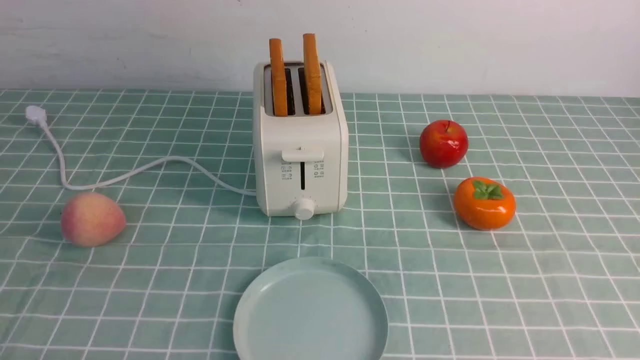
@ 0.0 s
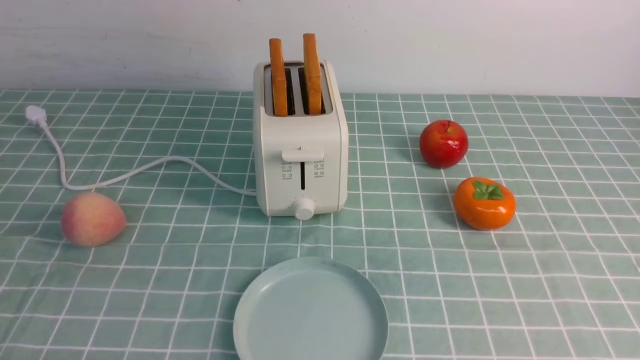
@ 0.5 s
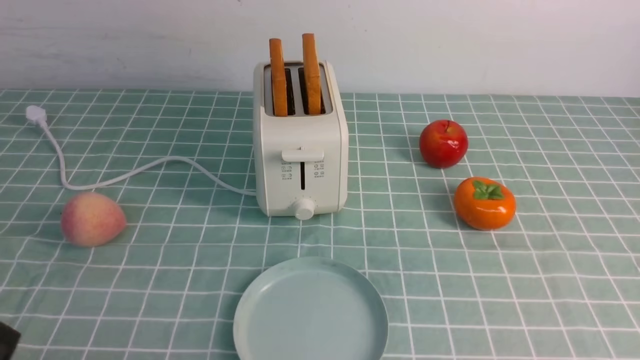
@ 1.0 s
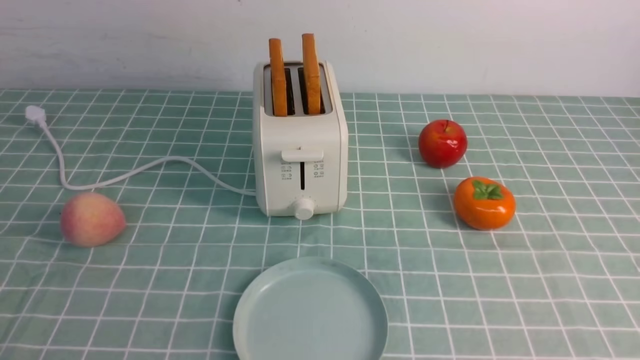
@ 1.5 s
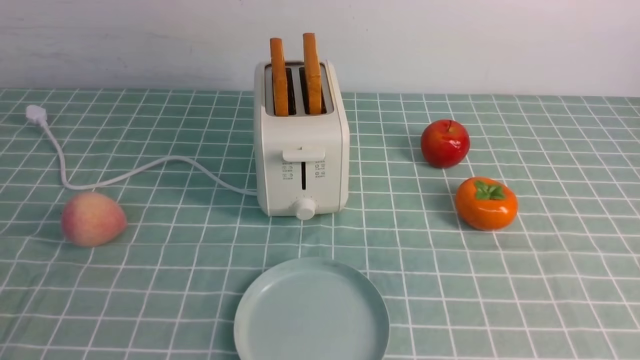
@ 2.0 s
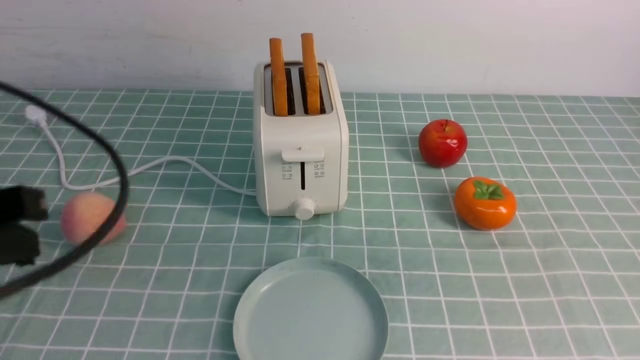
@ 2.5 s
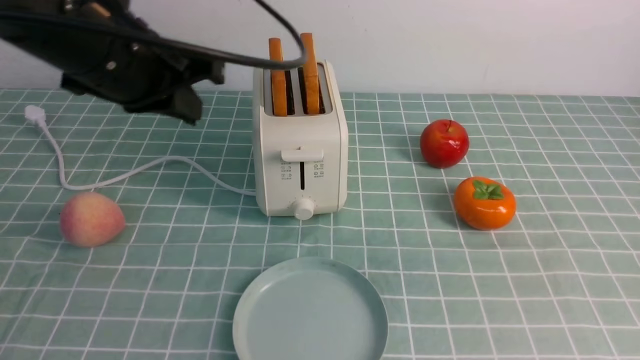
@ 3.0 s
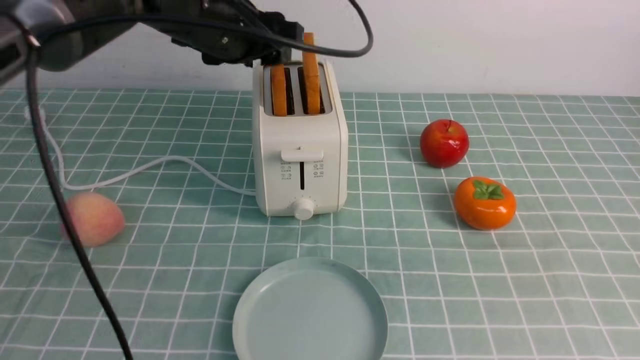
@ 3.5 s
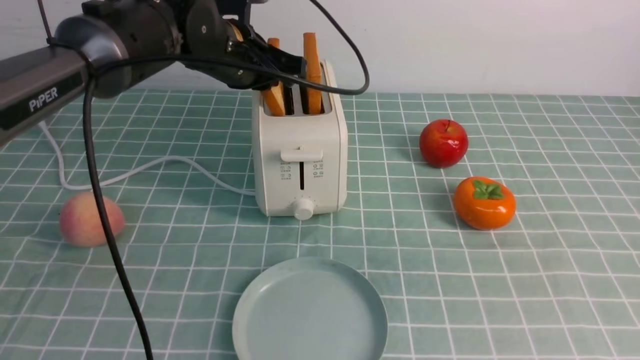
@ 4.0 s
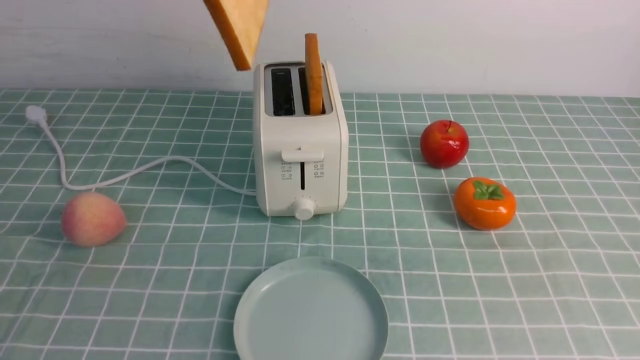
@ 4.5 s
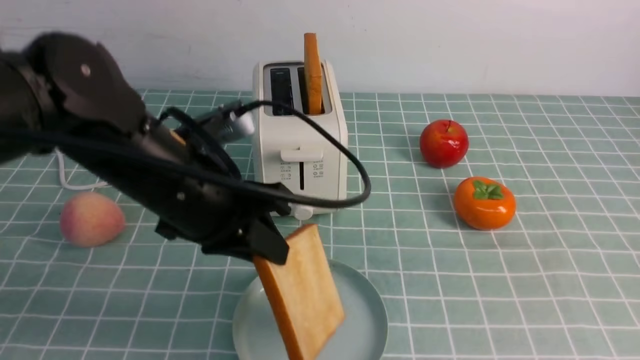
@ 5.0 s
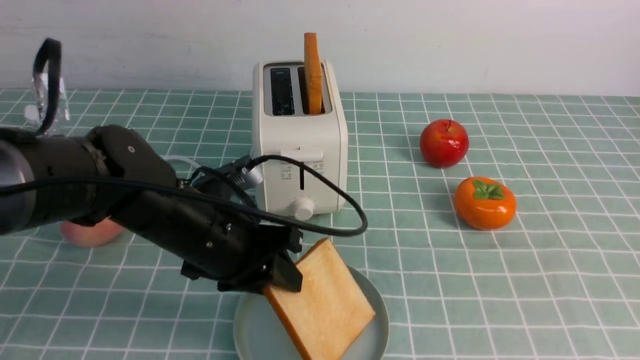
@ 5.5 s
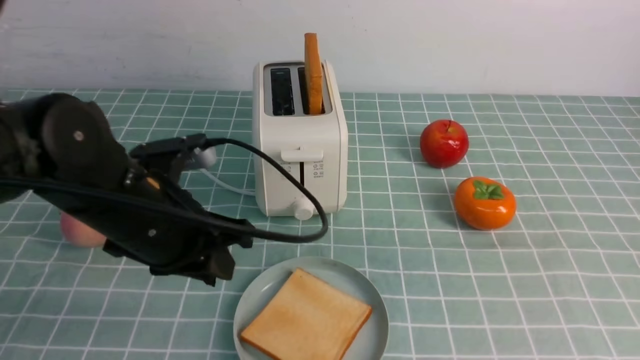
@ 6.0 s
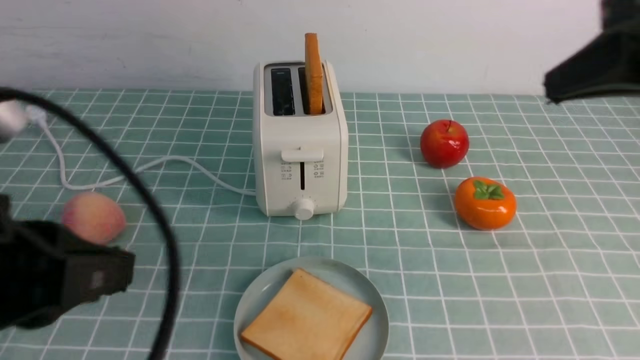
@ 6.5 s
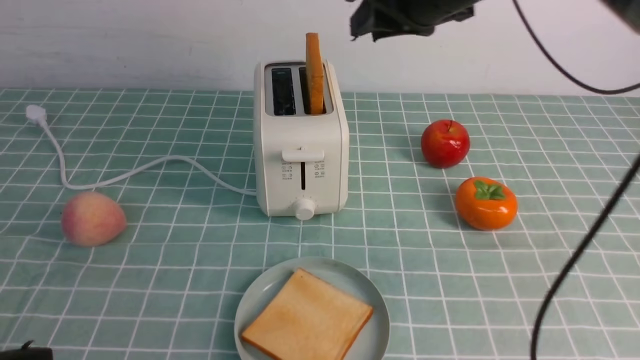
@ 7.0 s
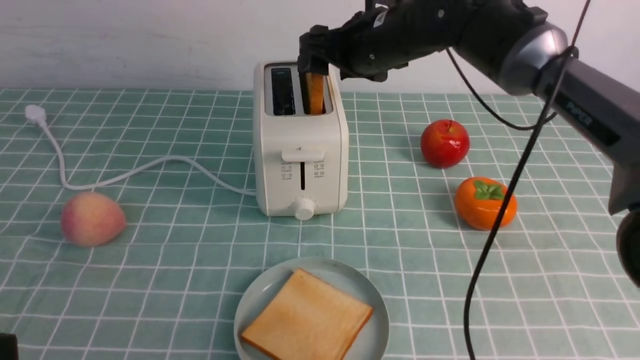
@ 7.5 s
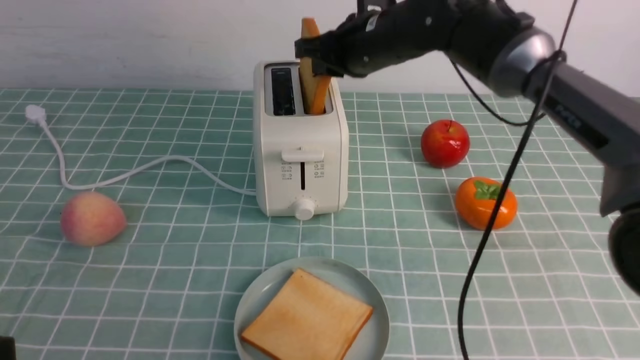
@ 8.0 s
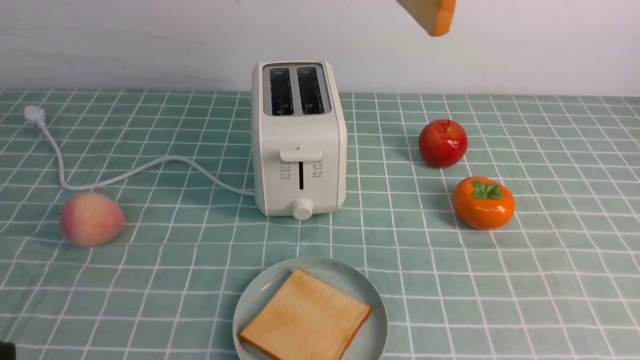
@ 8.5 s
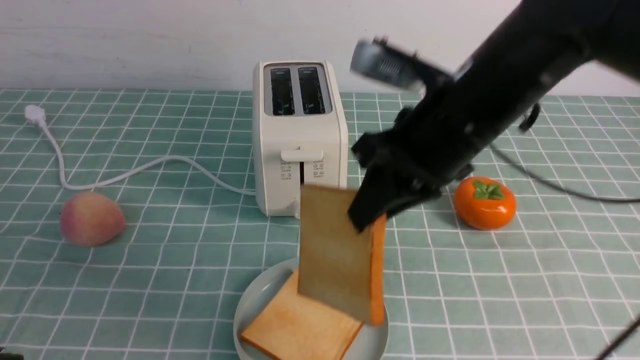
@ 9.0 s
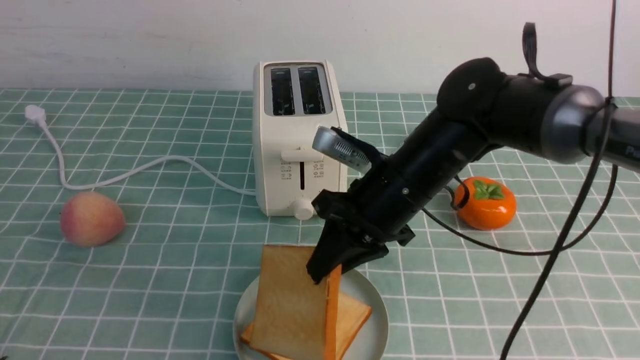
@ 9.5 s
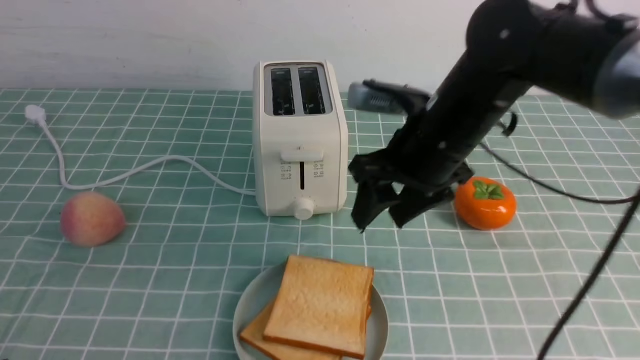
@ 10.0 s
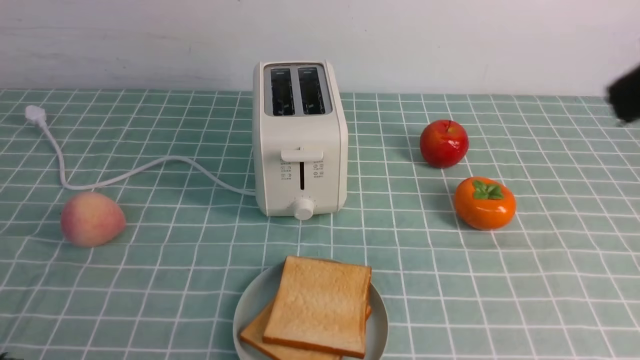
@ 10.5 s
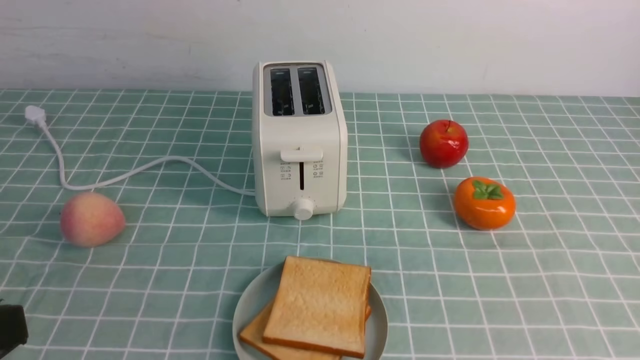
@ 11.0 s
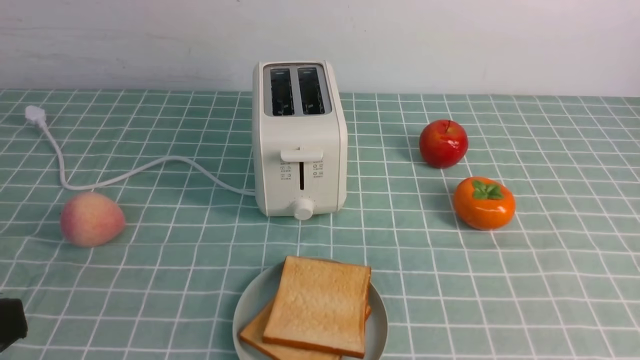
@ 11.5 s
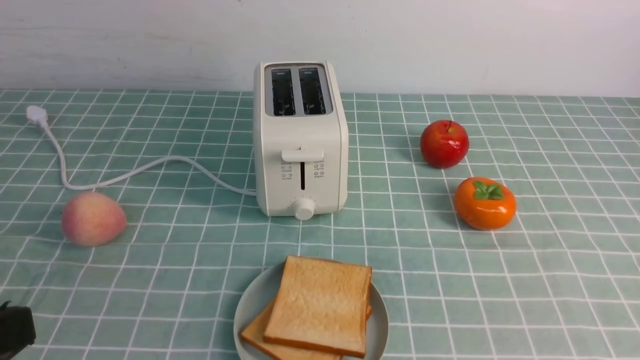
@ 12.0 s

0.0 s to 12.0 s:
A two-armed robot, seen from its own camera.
Task of the whole recording: take toasted bread from bread machine on blue coffee table place on plate.
Step, 0.0 to 4.0 s: use the left arm to take out a slice of bread.
Step, 4.5 to 5.5 s: use the left arm to put a slice of bread into the empty plate.
Step, 6.0 to 8.5 s: use the right arm to take out a slice of bread.
Step, 9.0 to 10.0 s: use the right arm to put a slice of bread into the plate.
2.0 to 4.0 s: The left gripper goes roughly 40 cm forward, and opens its fingers. Meanwhile the right gripper travels upward and forward by about 10 cm.
4.0 to 6.0 s: The right gripper moves some 5 cm. Meanwhile the left gripper moves up and down over about 20 cm, changing direction 2 times.
6.0 to 8.0 s: The left gripper heads backward and to the left, covering roughly 25 cm, and closes up; the right gripper is displaced forward and to the left by about 35 cm, and opens and closes again.
8.0 to 10.0 s: The right gripper moves up and down over about 25 cm, changing direction 2 times, and opens its fingers.
10.0 to 12.0 s: The right gripper heads backward and to the right, covering approximately 35 cm, and closes up.

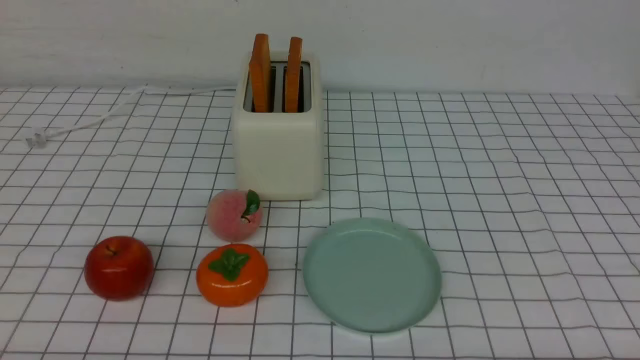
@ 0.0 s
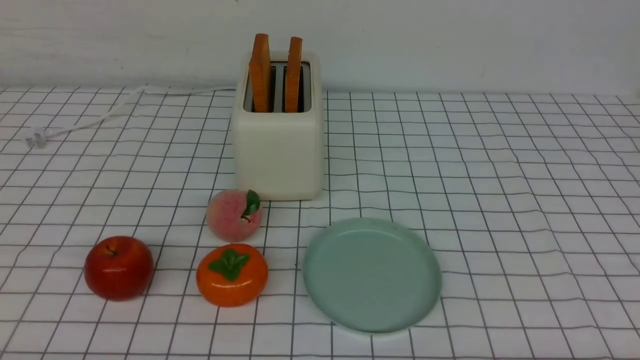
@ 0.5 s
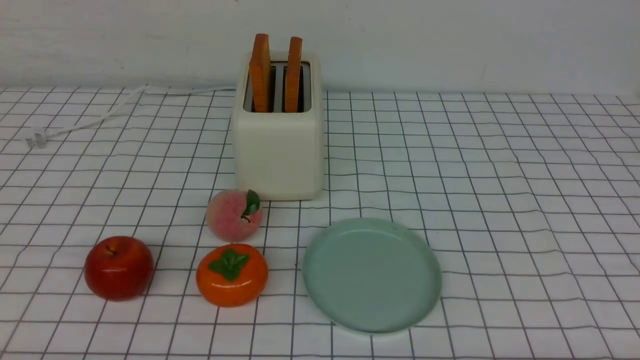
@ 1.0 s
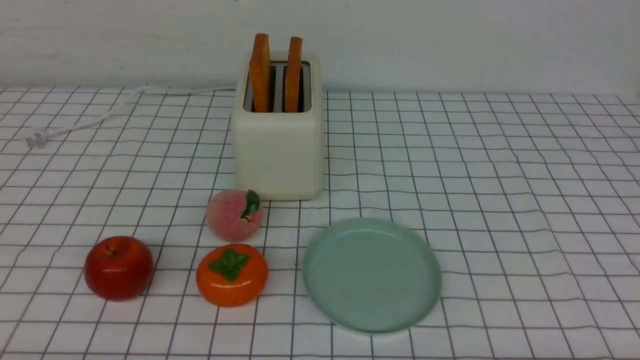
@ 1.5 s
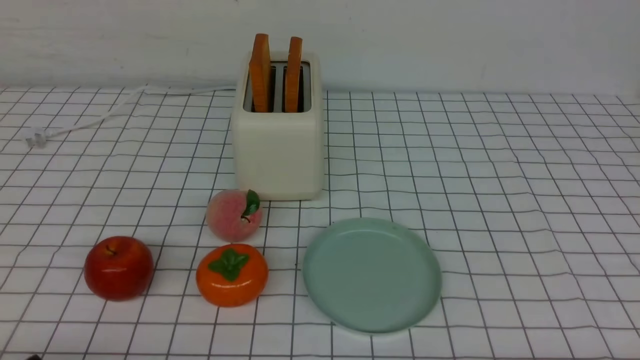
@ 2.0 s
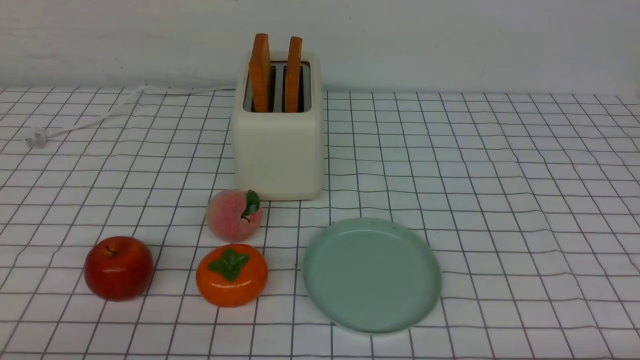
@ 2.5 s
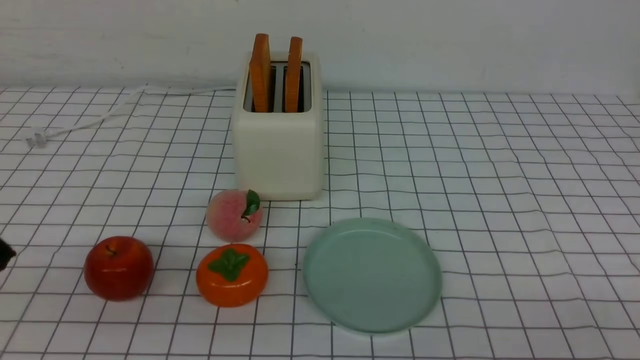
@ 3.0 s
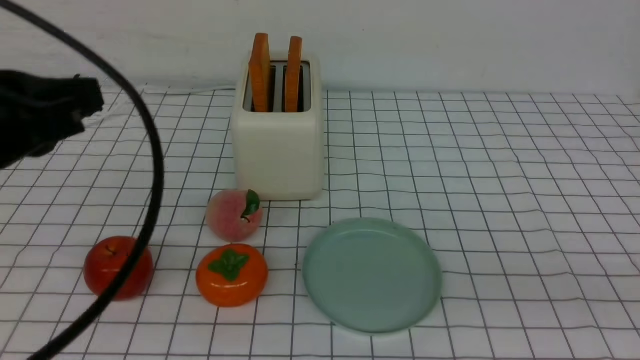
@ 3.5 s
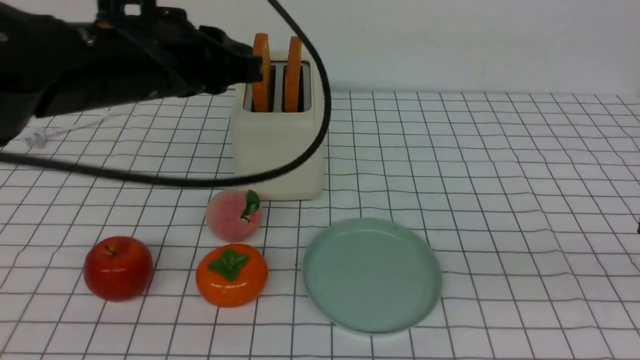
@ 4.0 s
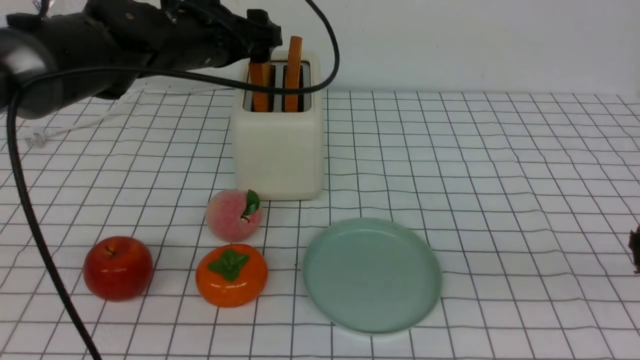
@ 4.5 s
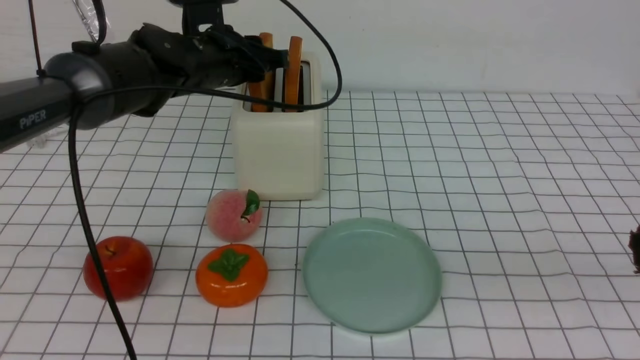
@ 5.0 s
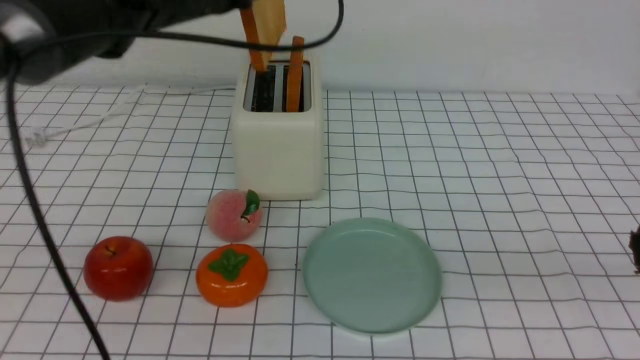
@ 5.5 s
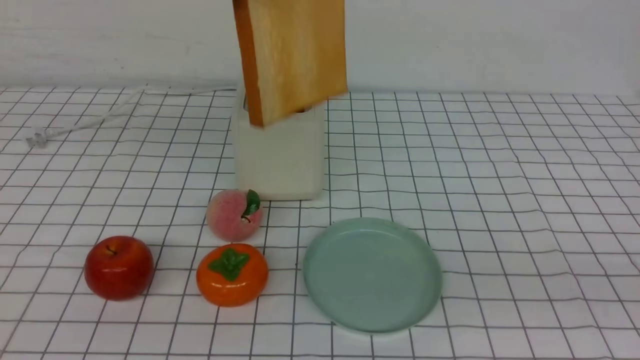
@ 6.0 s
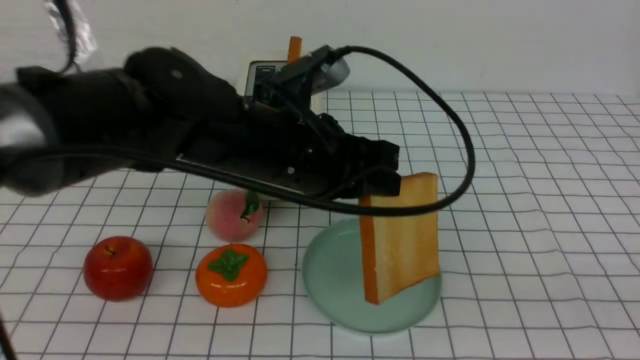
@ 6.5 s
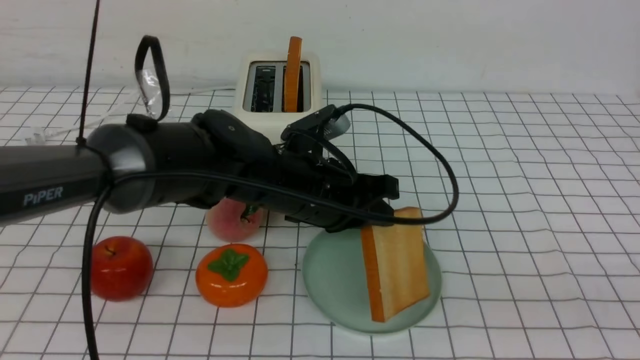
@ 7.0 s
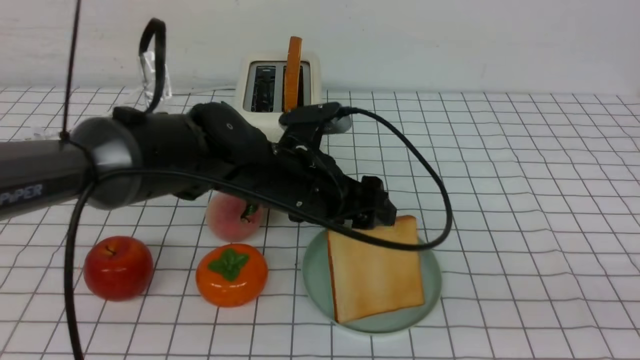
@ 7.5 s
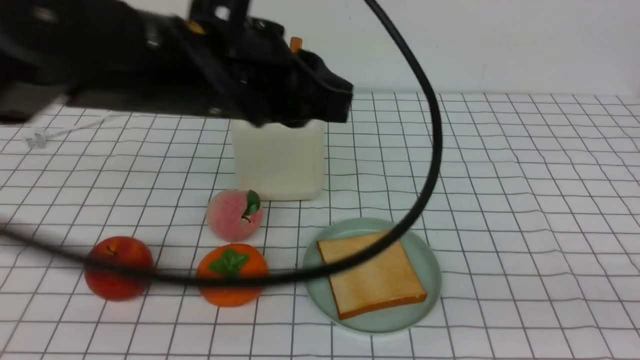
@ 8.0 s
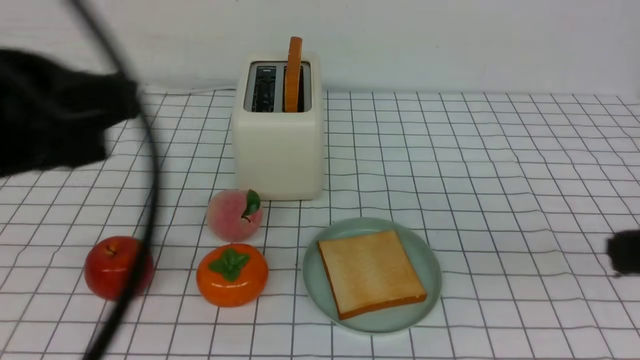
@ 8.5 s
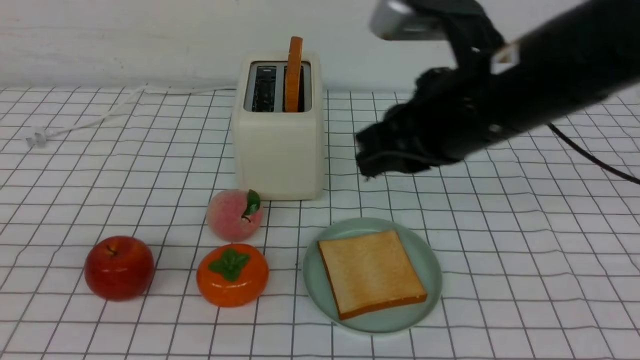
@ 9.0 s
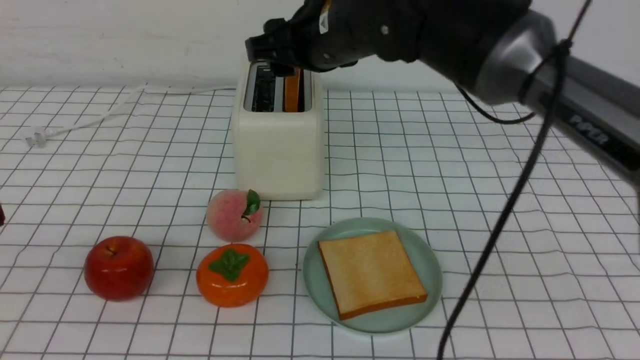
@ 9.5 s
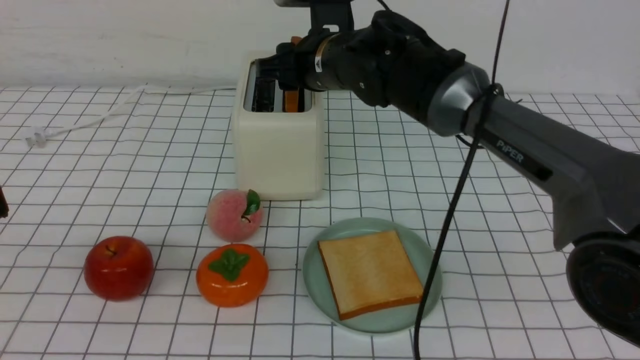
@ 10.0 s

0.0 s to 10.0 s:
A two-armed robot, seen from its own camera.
Task of the whole recording: take toasted bread from bread machine on white checkered table place on plate.
Step, 0.0 to 5.0 s: use the left arm to take out a slice of bread.
Step, 5.5 to 7.5 s: use the left arm to put a slice of bread into the empty plate.
2.0 to 4.0 s: The left gripper goes some 35 cm forward, upward and to the right, and closes, then reopens. The right gripper travels upward by approximately 20 cm, and closes up.
4.0 to 6.0 s: The right gripper moves about 5 cm, while the left gripper moves upward, roughly 5 cm, reaches roughly 15 cm forward, then returns, and opens and closes again.
6.0 to 8.0 s: The left gripper travels downward and back again, roughly 20 cm each way, and opens, then closes again.
8.0 to 10.0 s: The right gripper travels forward and to the left by some 50 cm, and opens, while the left gripper moves backward and to the left, some 25 cm.
